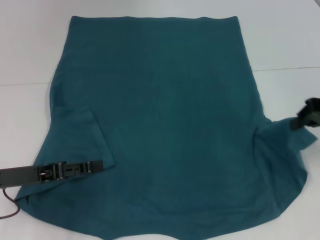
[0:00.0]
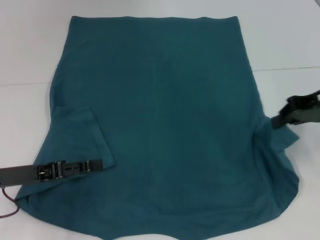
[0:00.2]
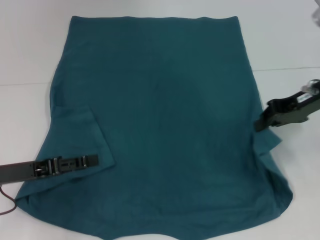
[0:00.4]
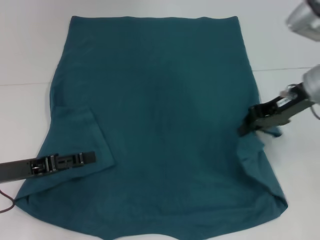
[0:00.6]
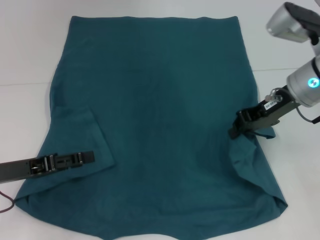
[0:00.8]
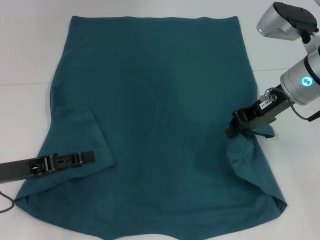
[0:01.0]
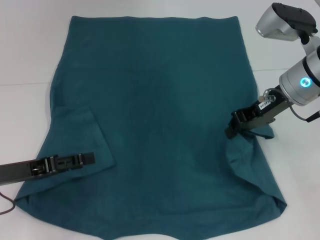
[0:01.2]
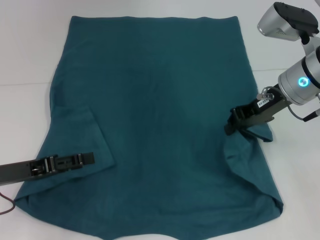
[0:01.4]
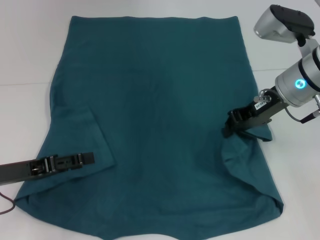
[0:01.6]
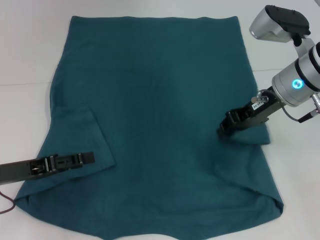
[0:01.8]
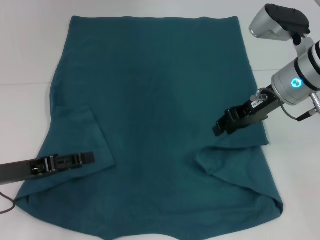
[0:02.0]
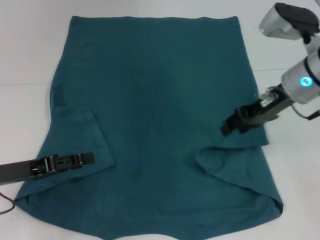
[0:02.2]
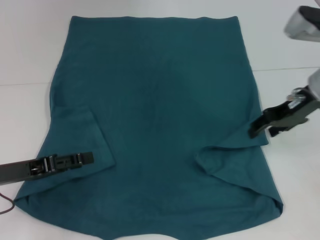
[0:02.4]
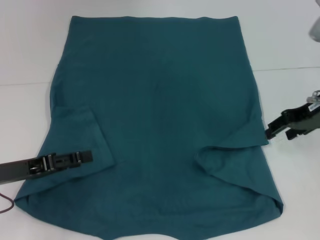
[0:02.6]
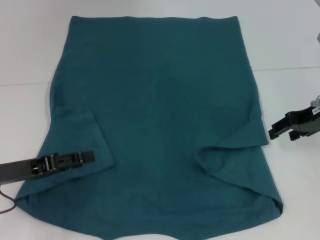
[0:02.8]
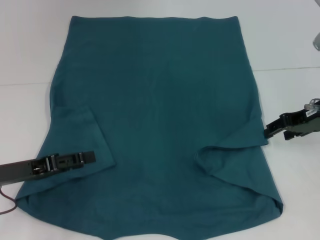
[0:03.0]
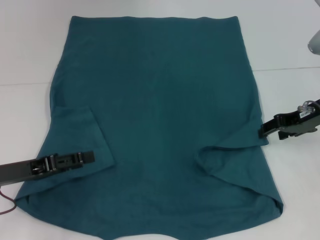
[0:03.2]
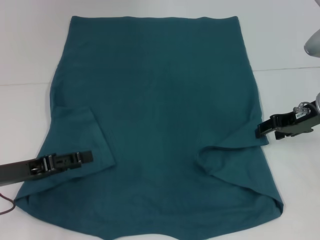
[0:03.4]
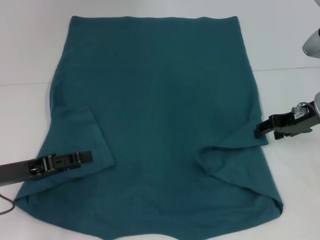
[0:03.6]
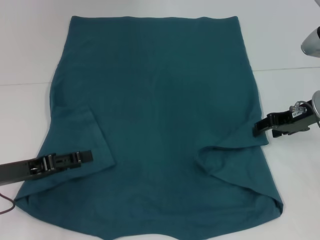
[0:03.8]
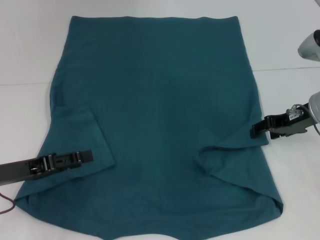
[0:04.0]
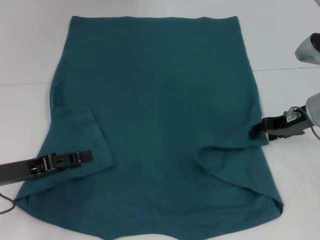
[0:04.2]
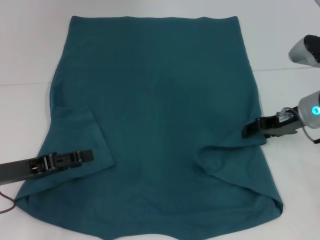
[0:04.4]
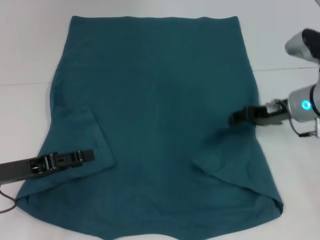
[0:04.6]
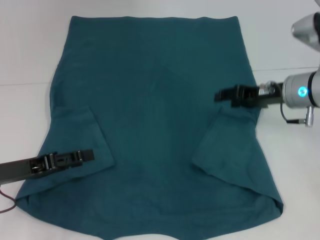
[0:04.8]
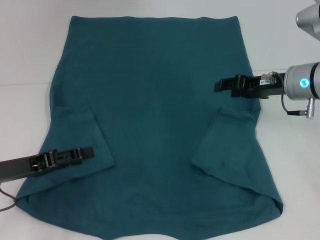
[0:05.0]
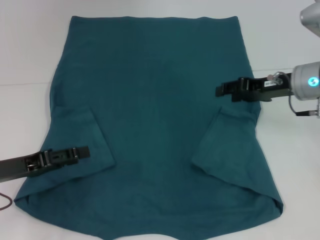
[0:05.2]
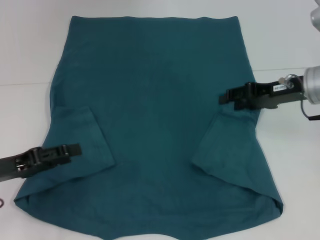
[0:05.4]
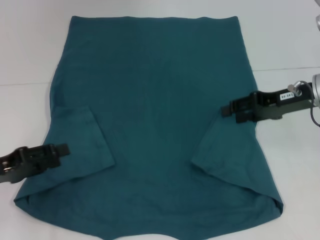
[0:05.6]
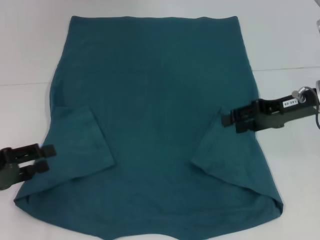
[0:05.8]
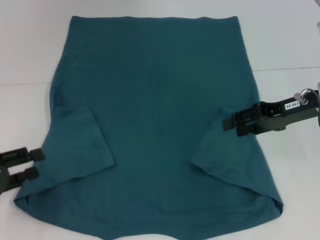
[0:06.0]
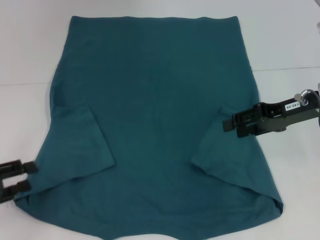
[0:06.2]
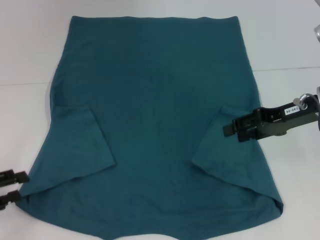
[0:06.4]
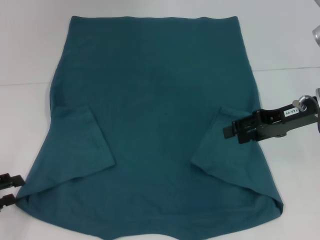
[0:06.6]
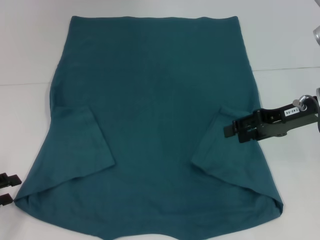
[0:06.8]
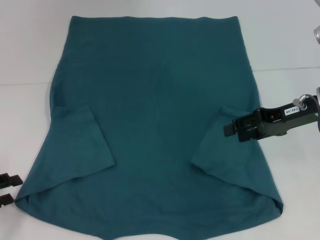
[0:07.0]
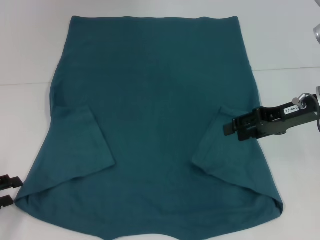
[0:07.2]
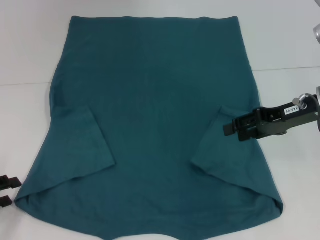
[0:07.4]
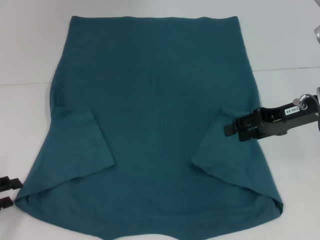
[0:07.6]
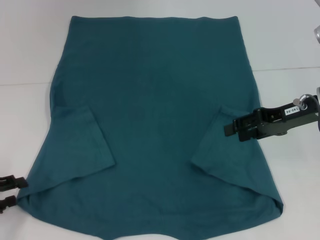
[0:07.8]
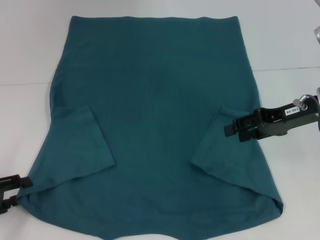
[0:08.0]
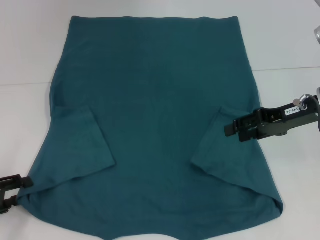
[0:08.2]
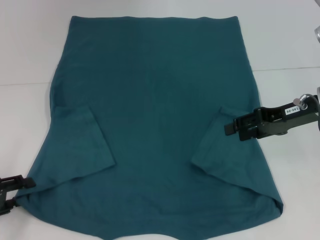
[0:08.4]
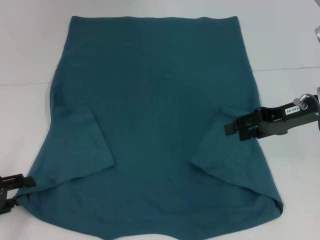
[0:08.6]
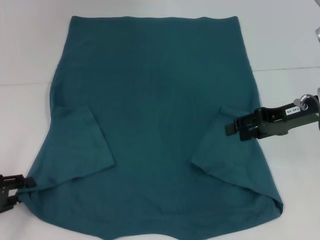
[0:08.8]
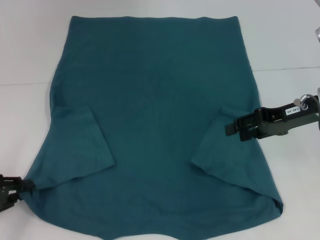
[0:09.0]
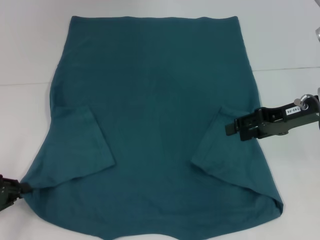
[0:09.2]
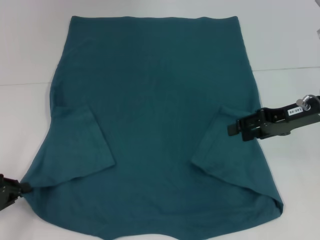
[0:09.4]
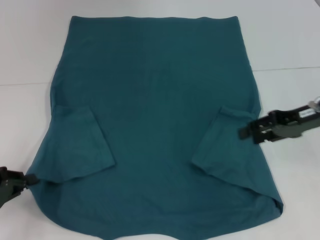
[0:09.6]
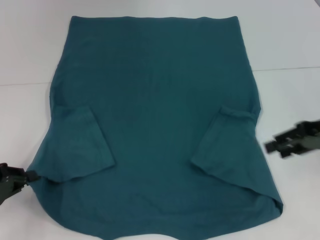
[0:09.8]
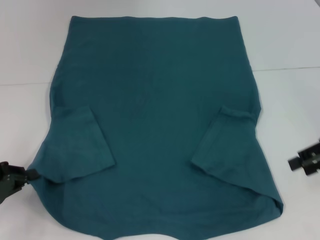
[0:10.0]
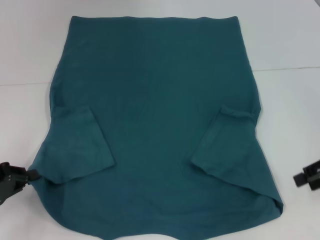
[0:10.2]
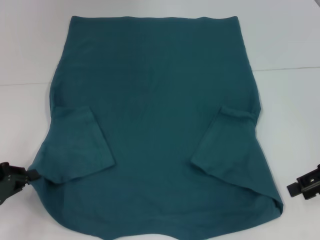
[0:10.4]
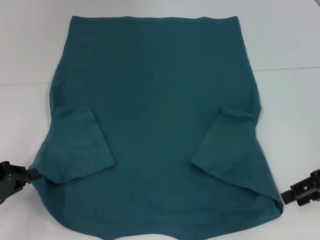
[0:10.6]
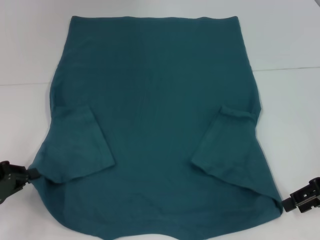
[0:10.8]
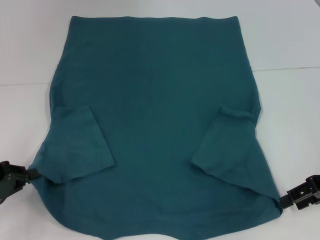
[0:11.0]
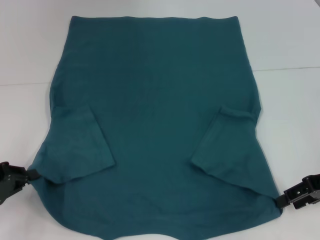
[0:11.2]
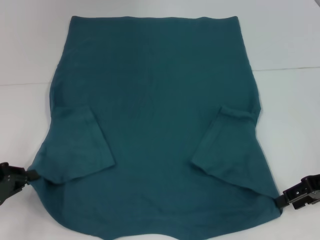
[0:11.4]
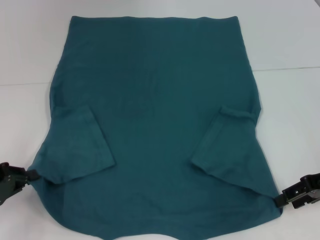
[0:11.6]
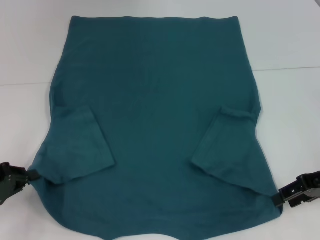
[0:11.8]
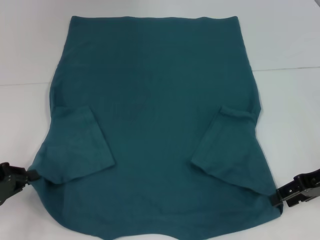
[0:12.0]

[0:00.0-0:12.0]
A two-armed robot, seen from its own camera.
Step, 0:00.0 to 0:05.0: Fold the bottom right sleeve to the right.
Step, 0:05.2 to 0:09.2: Grab the bottom left corner with your left hand.
0:00.0 to 0:01.6: The right gripper goes roughly 10 cm to the left.
0:01.6 to 0:03.0: The right gripper shifts roughly 10 cm to the right, and opens.
0:03.0 to 0:04.4: There are only small adjustments of the grippers.
0:04.4 to 0:06.0: The right gripper shifts by some 5 cm, while the left gripper is displaced to the left by approximately 5 cm.
0:06.0 to 0:09.0: The grippers stay close to where they were, moving slightly.
0:09.0 to 0:10.4: The left gripper closes its fingers. Meanwhile the right gripper is displaced to the right and backward by some 10 cm.
0:10.4 to 0:12.0: The grippers stay close to where they were, moving slightly.

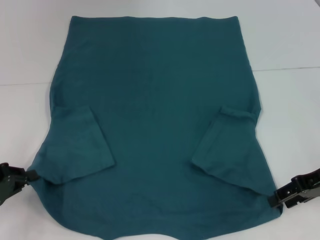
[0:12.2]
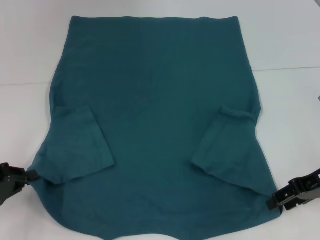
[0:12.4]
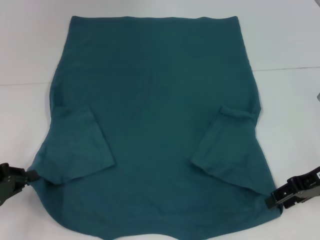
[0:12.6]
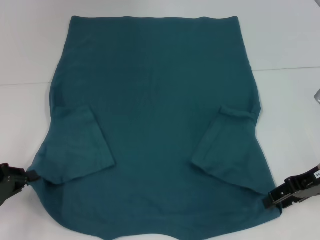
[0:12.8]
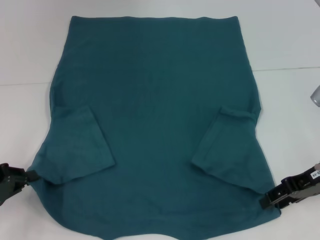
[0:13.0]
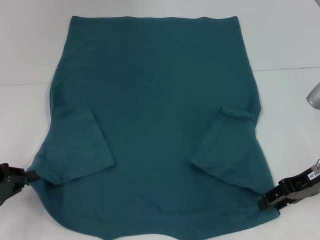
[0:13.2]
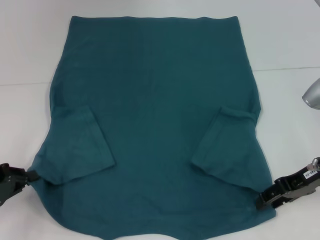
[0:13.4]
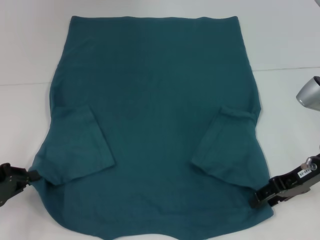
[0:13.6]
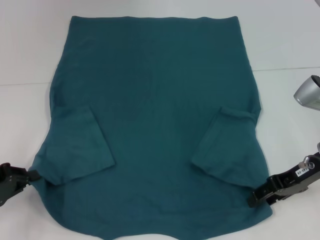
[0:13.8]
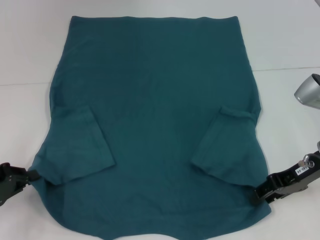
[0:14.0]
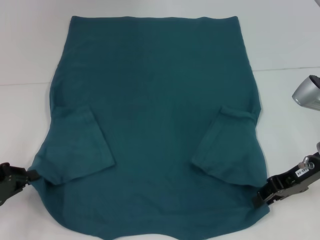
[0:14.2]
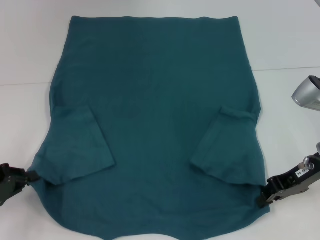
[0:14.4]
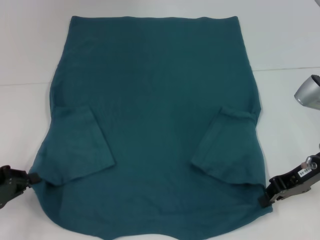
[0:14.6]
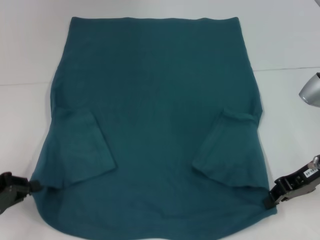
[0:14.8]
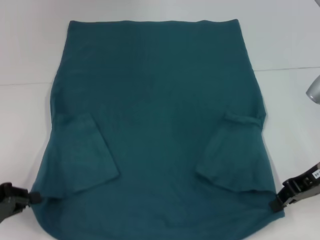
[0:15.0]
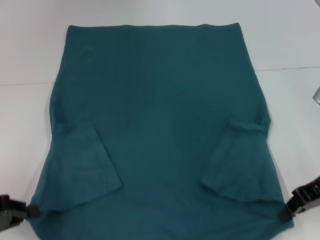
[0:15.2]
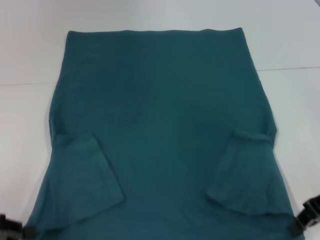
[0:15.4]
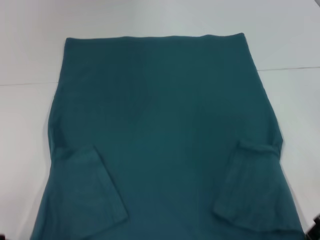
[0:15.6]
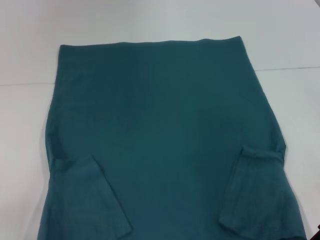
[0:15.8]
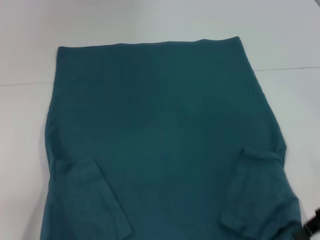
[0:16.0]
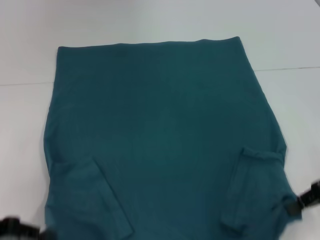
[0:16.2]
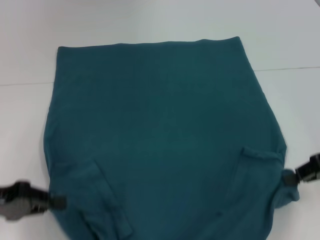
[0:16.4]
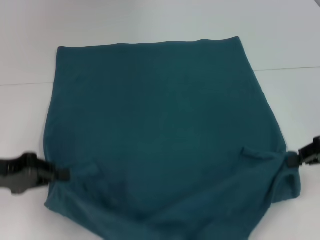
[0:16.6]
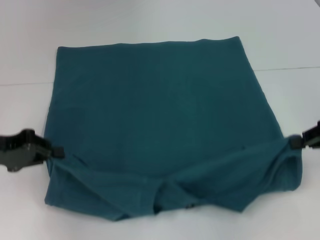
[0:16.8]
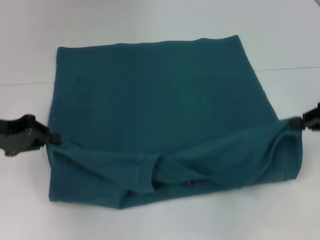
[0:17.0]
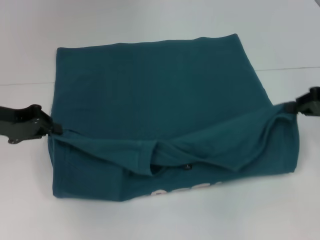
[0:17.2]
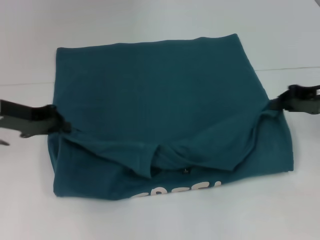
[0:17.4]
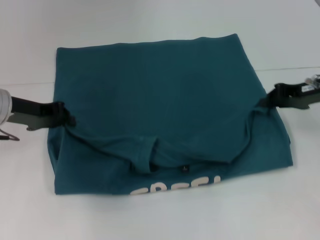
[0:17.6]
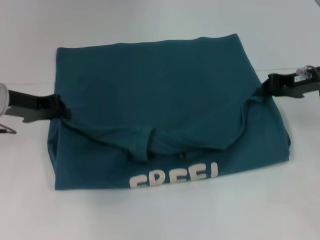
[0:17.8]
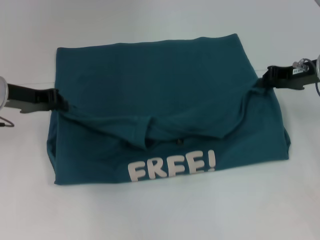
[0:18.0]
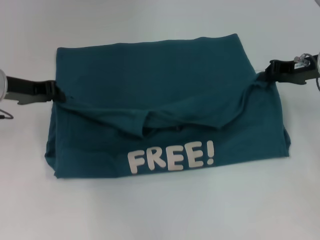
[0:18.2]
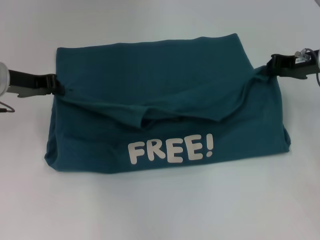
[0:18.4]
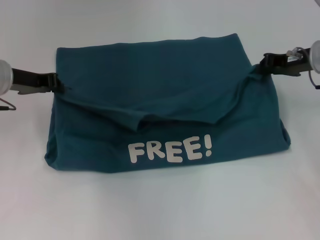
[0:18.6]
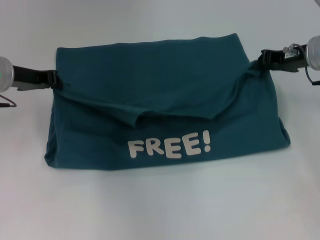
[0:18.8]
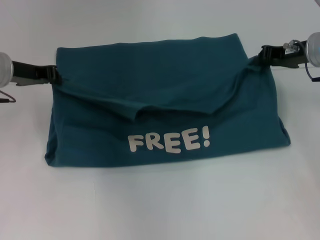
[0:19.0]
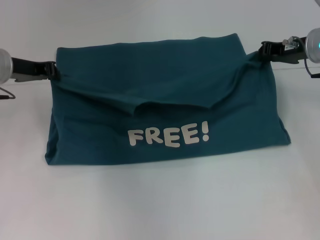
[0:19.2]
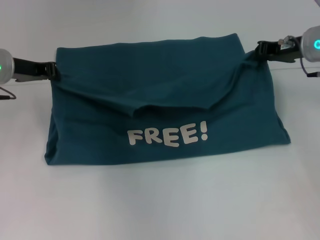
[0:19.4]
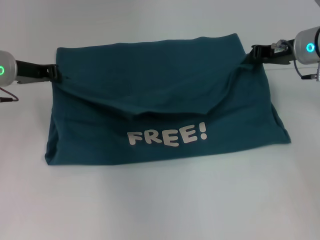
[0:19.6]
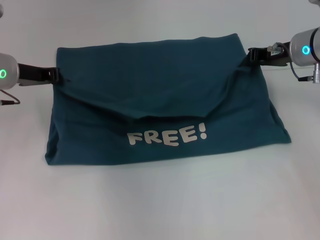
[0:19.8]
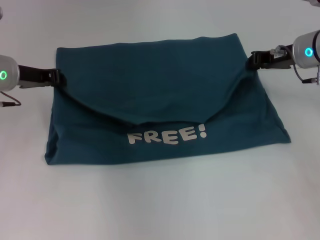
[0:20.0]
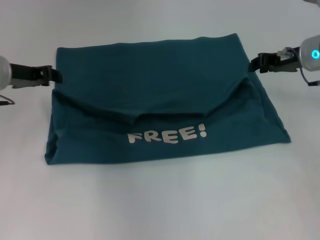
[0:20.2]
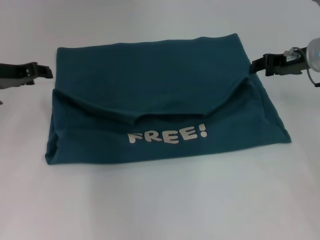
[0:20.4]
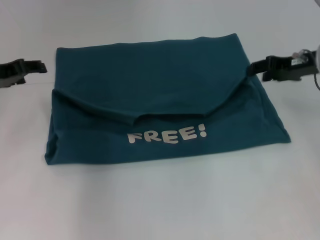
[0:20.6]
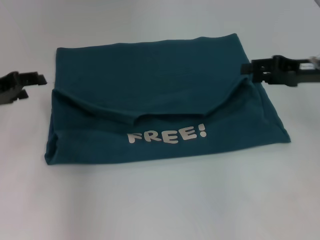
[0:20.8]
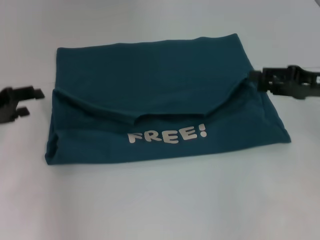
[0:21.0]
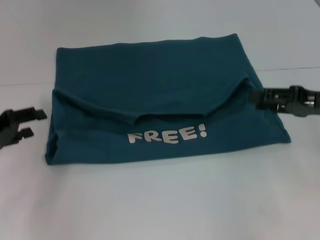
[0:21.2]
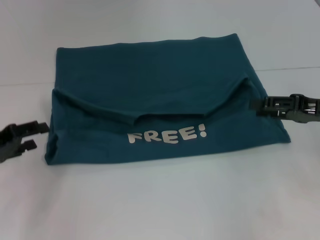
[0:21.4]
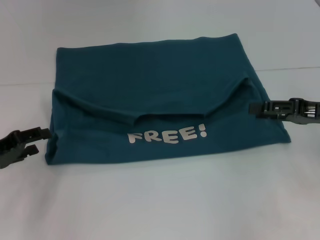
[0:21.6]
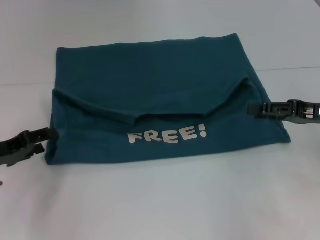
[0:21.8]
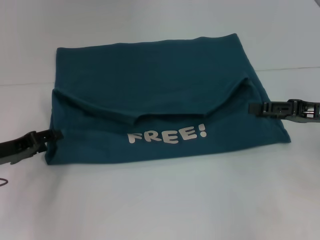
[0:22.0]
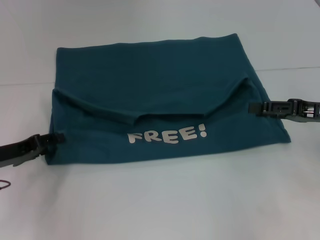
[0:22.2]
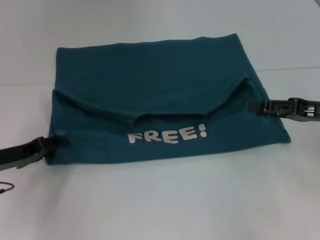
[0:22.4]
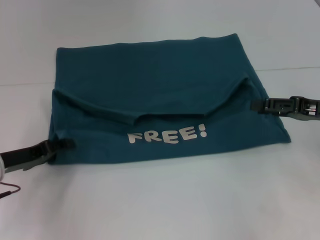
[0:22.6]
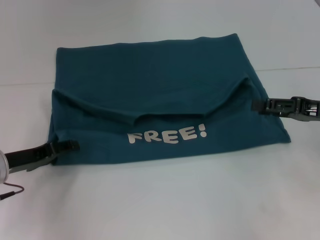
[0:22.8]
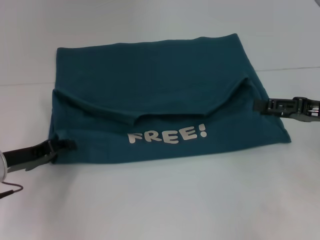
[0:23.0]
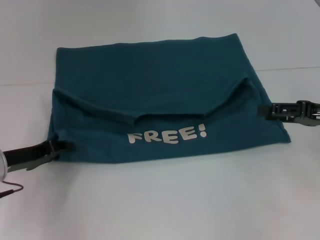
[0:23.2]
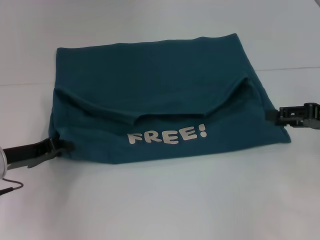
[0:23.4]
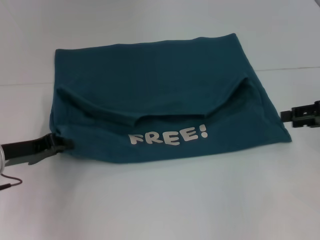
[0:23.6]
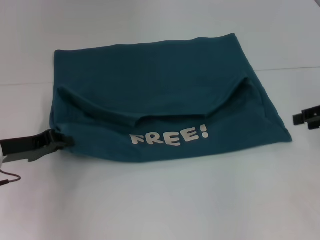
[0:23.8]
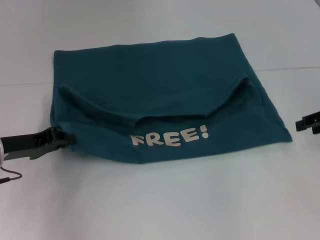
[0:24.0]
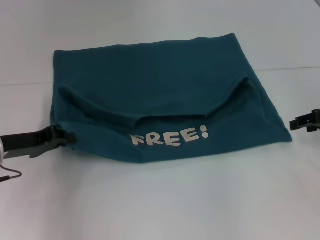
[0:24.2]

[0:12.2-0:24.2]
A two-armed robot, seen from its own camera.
Step, 0:12.2 to 0:14.6: Grab the bottom right corner with your right hand.
Step, 0:14.8 to 0:20.2: Fold the clothes to the left.
Step, 0:14.8 to 0:20.2: Fold the clothes to the right.
0:12.2 to 0:13.8: The grippers move only a little.
0:13.8 to 0:15.2: The right gripper closes.
0:15.2 to 0:16.6: The right gripper is displaced to the right by approximately 5 cm; the left gripper moves forward and upward, roughly 10 cm.
0:16.6 to 0:18.2: The left gripper moves forward, about 10 cm. The right gripper moves forward and to the left, approximately 15 cm.
0:18.2 to 0:19.8: The grippers make only small movements.
0:19.8 to 0:21.2: The left gripper heads backward, to the left and downward, covering about 15 cm, and opens up. The right gripper moves backward and to the right, some 15 cm, and opens.
0:21.2 to 0:22.6: The left gripper heads downward, covering roughly 5 cm.
0:22.6 to 0:24.2: The left gripper closes.
